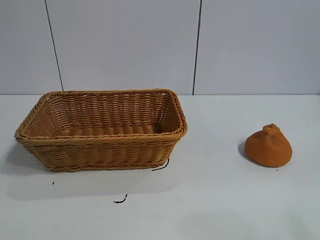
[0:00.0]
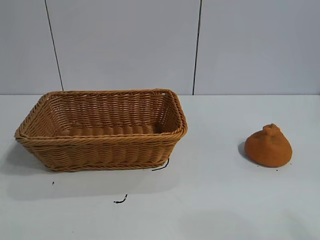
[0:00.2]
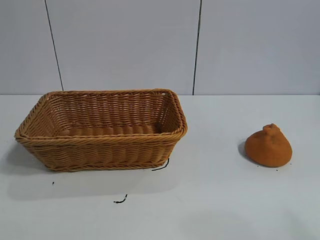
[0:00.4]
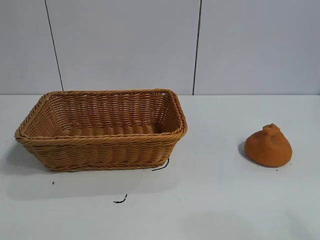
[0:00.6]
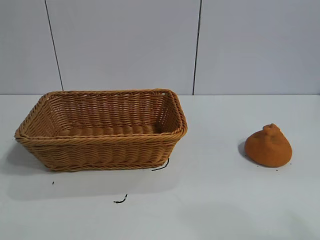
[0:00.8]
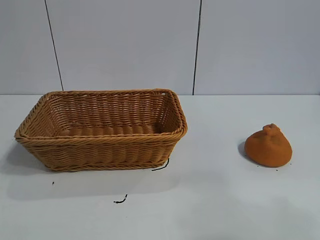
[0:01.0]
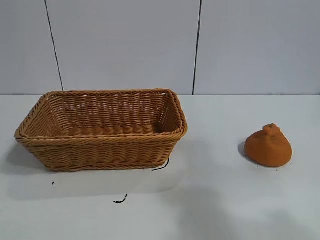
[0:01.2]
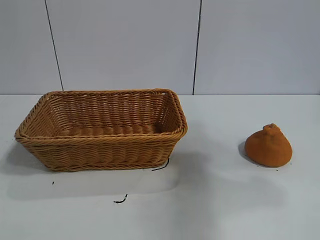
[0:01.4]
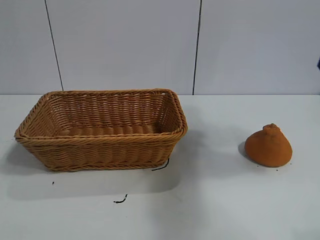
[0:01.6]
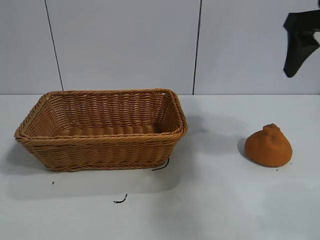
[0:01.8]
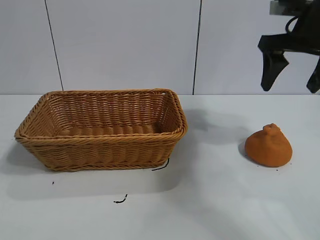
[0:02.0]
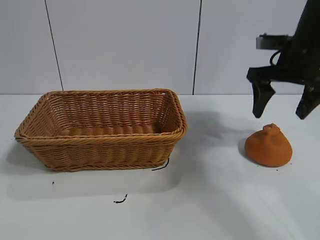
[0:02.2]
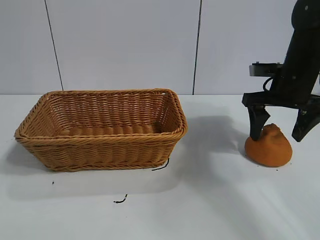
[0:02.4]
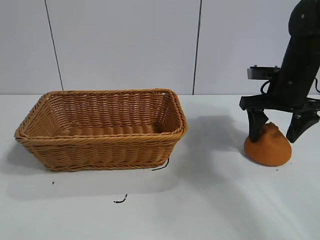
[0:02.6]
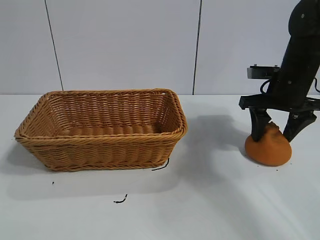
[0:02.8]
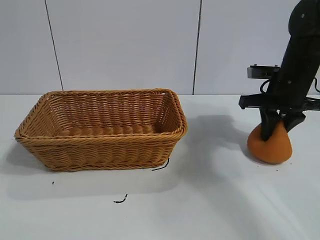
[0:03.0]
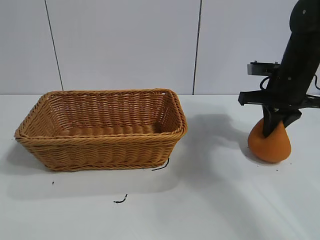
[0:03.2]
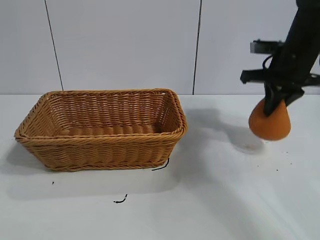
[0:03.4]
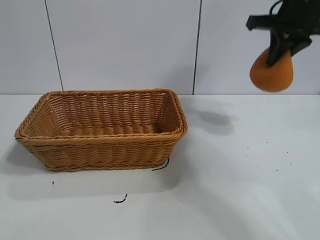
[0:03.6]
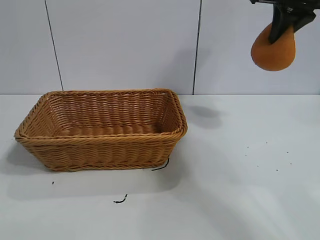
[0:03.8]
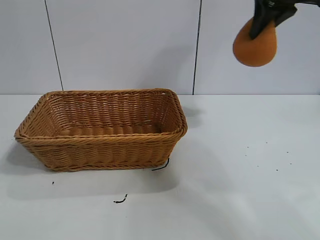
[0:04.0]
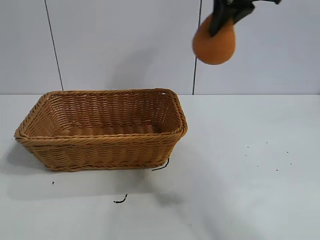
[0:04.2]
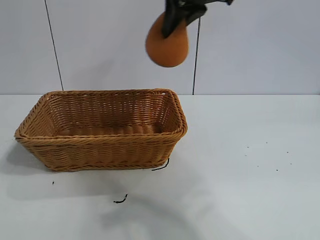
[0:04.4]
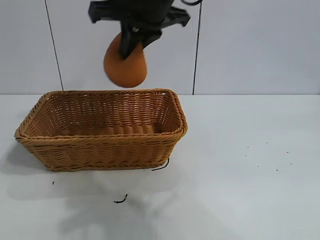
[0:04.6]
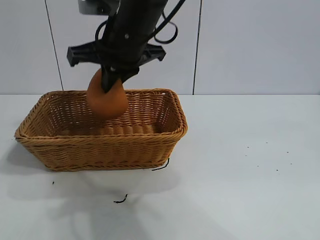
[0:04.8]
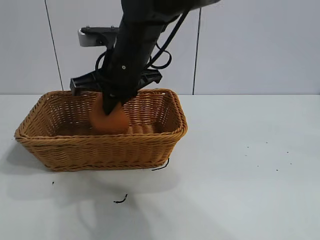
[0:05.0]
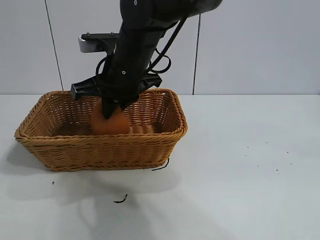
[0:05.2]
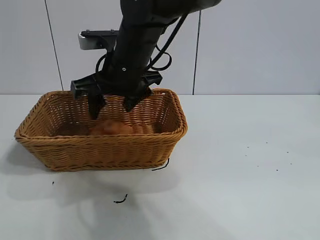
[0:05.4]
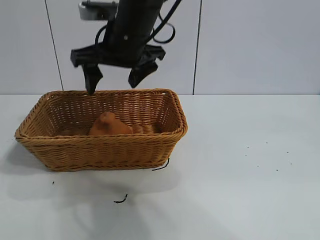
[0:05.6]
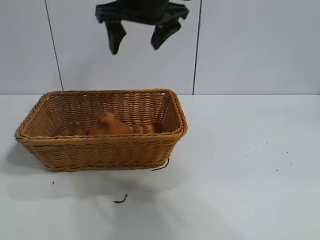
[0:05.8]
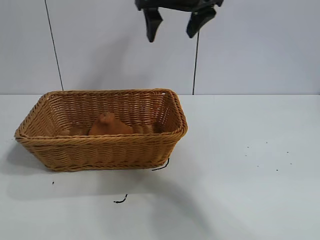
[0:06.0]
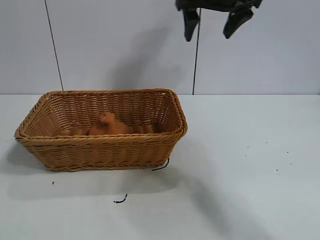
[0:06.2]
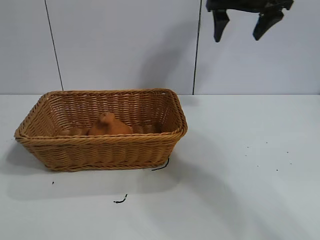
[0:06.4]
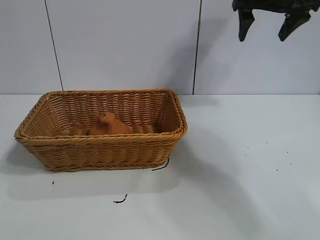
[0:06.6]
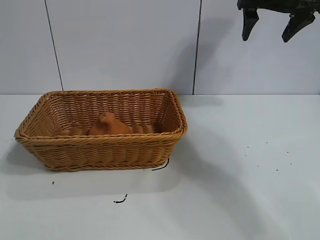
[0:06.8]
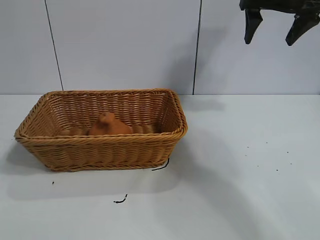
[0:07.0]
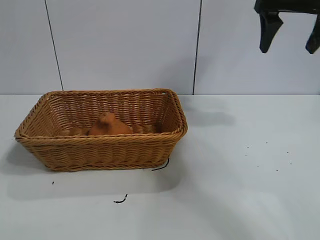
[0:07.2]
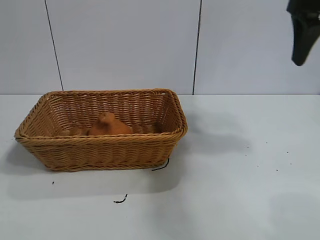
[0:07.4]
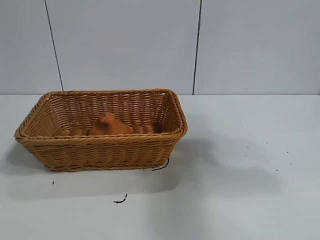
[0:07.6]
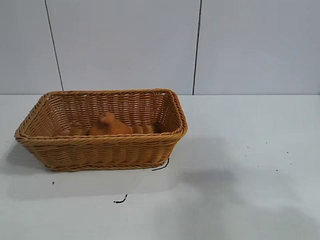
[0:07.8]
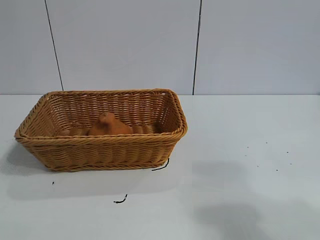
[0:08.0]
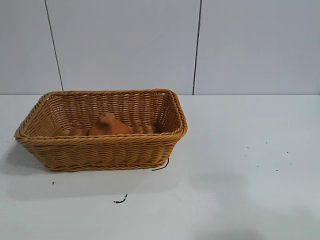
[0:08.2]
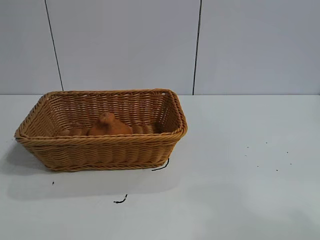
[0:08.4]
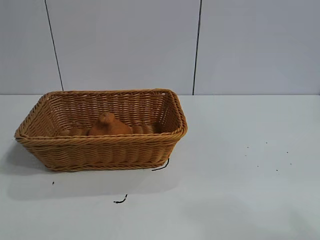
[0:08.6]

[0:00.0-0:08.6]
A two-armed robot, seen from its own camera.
Task of the whole recording: pick up the orange and put it into the basket.
Step, 0:00.8 to 0:03.2: Grasp the orange with right gripper.
Step, 0:03.4 to 0:05.4: Place the orange in the basket with right gripper.

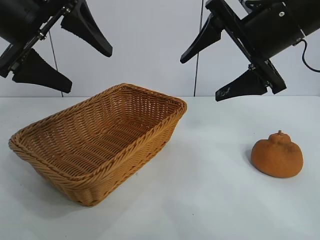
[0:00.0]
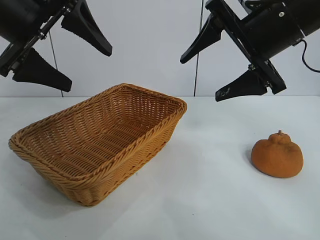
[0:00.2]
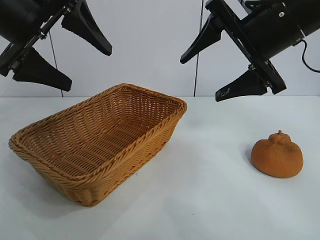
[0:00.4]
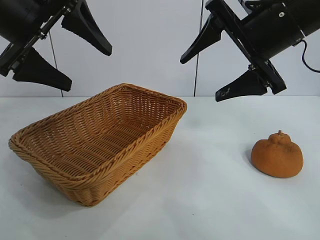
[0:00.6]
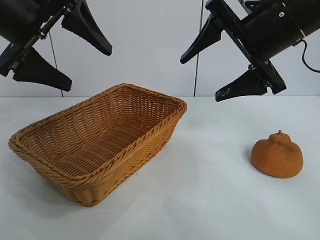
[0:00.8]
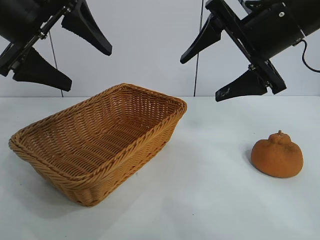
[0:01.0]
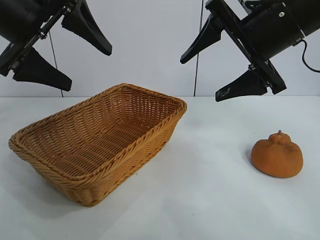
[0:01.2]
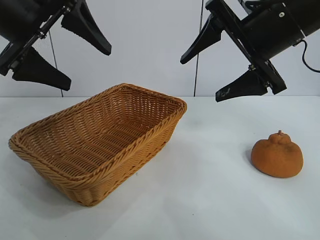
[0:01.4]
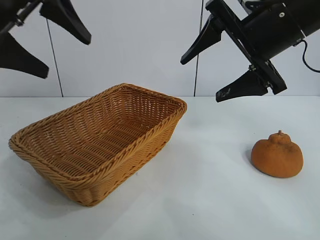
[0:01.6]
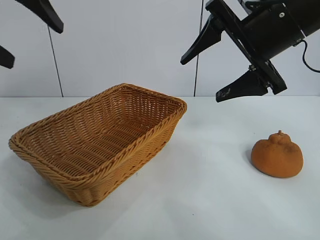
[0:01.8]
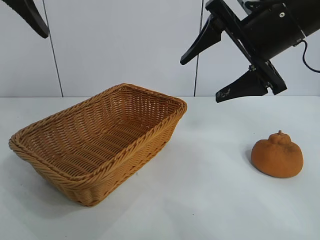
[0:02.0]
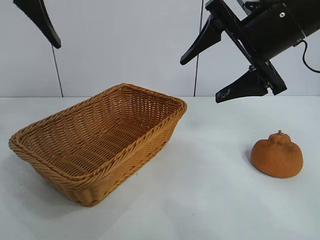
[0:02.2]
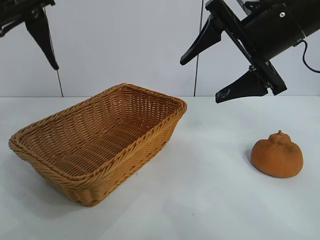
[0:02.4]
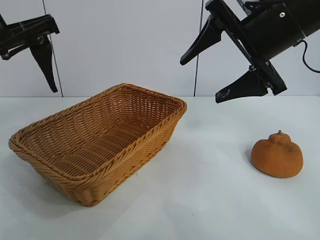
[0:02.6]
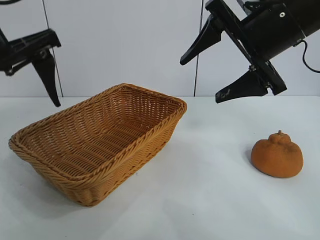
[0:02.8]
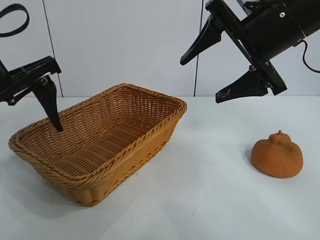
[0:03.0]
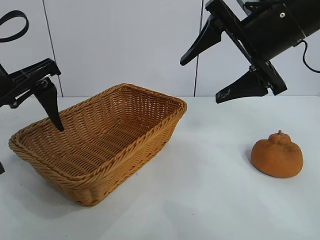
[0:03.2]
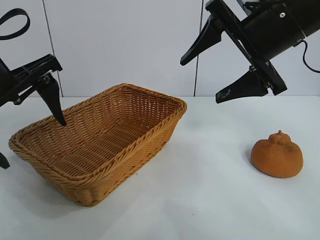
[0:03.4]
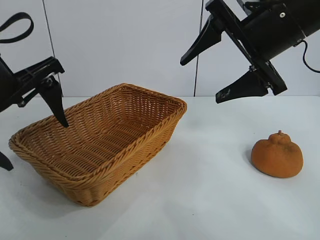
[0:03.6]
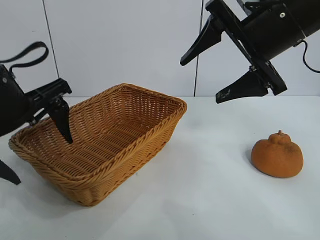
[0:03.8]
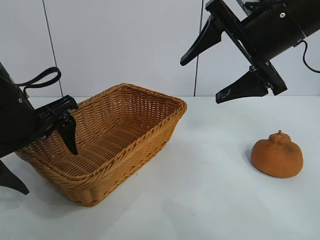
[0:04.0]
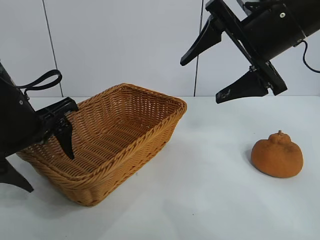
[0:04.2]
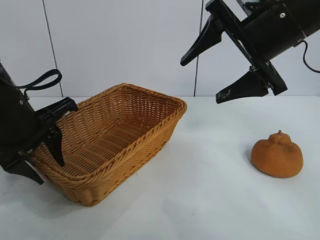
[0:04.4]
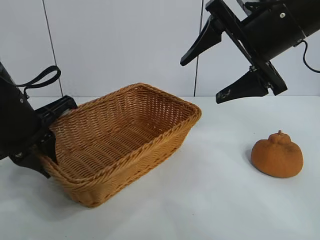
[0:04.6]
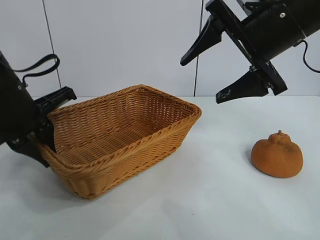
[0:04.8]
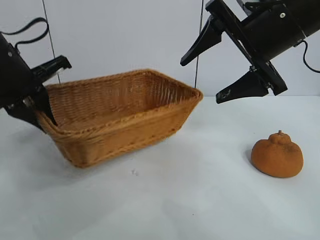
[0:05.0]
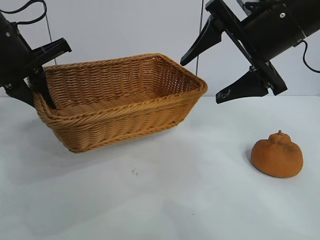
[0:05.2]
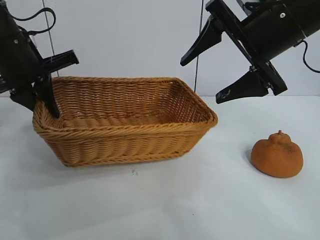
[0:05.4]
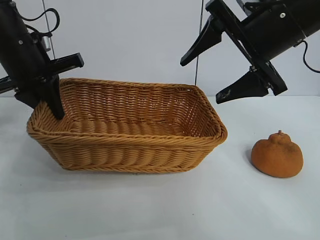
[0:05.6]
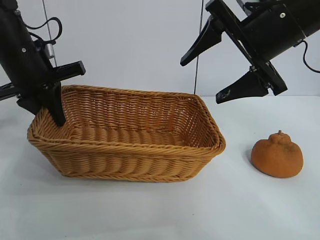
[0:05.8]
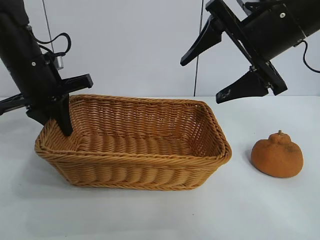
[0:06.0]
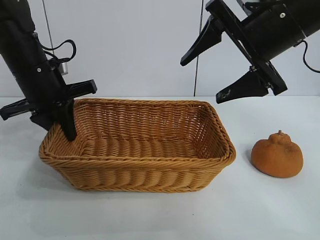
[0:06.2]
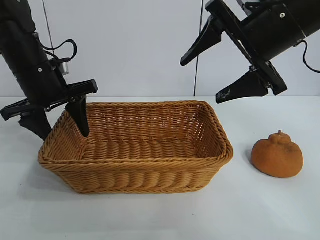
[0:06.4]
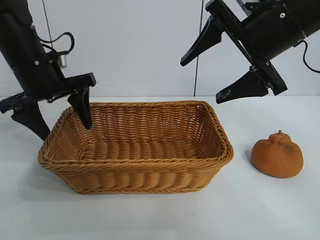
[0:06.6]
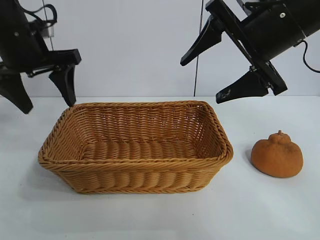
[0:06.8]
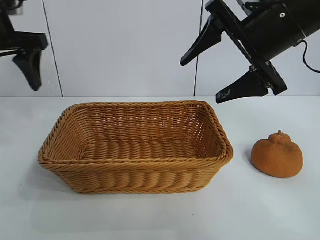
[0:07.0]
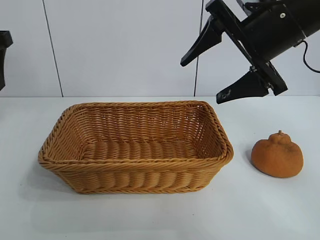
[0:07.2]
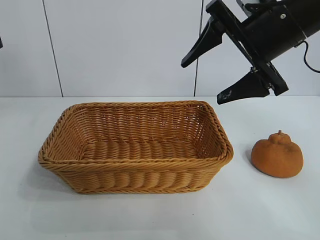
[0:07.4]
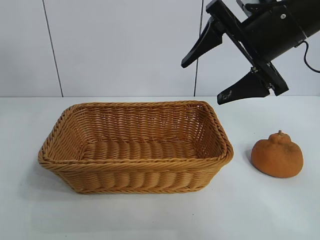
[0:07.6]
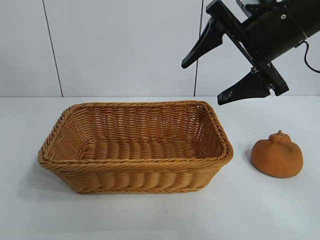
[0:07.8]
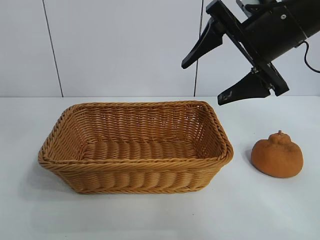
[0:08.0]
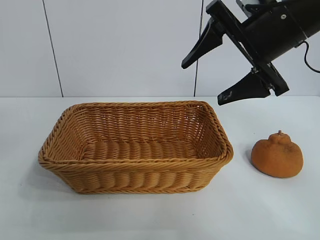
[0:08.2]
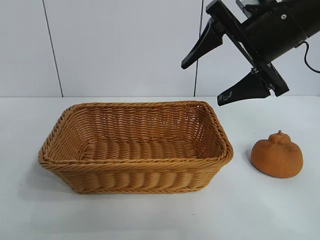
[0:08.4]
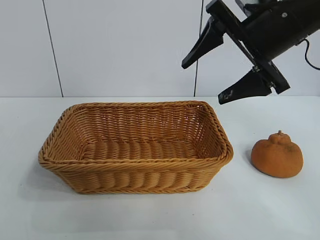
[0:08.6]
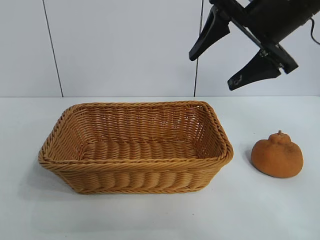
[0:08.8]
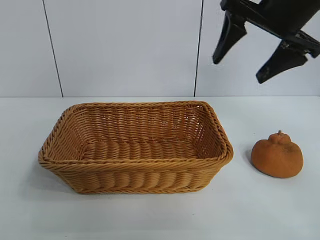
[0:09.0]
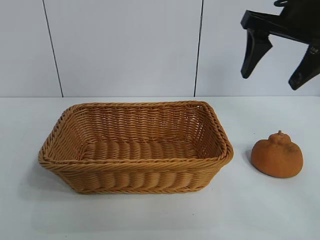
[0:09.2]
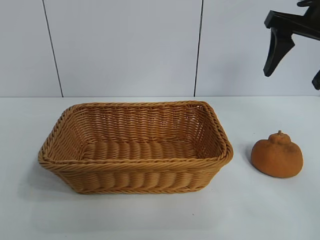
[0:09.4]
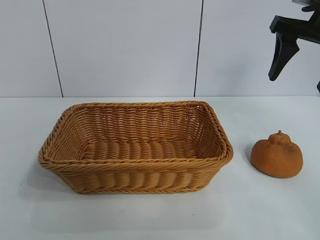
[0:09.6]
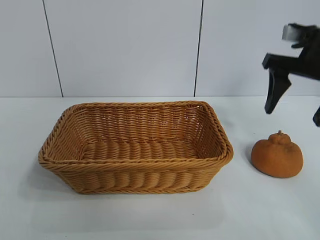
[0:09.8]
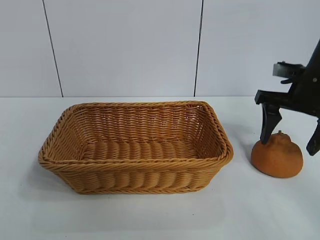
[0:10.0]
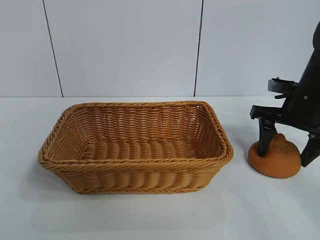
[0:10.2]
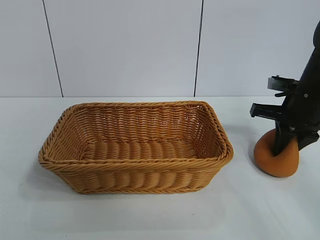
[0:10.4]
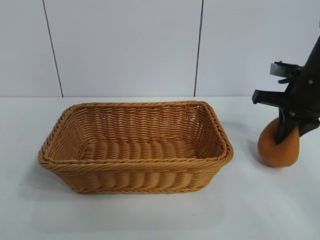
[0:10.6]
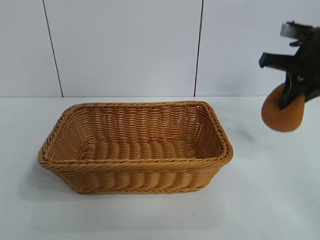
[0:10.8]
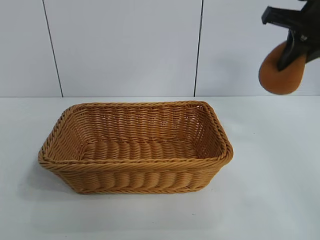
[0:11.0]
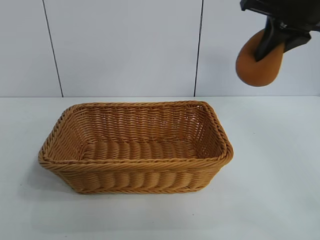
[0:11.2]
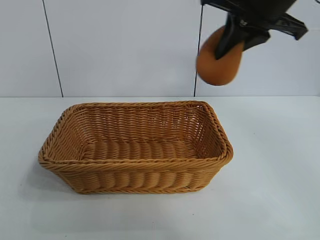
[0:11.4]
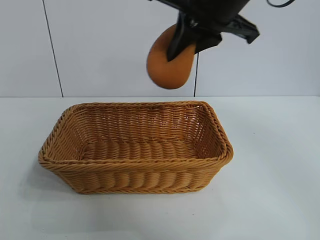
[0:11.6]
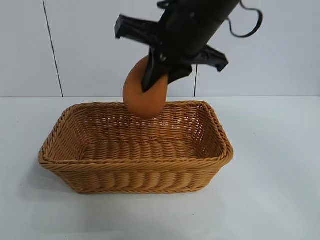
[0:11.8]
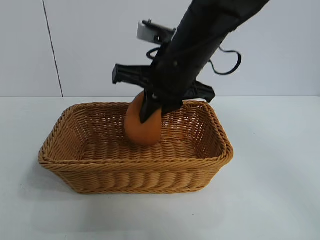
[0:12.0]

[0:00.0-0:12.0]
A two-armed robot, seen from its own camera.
Task of the whole recording: pick up the orange and put it into the basket.
Step, 0:01.2 to 0:04.4: Grasp the basket with left gripper.
Step, 0:04.6 to 0:06.4: Place the basket in the center of view with left gripper.
Step, 0:06.6 to 0:10.2: Grasp the orange with right gripper.
